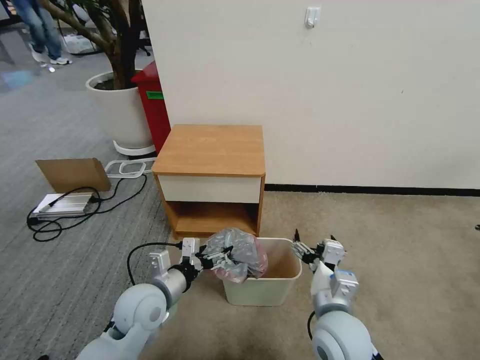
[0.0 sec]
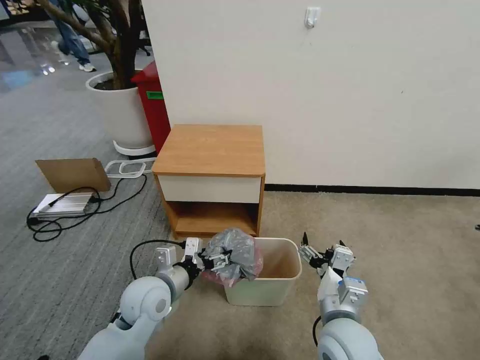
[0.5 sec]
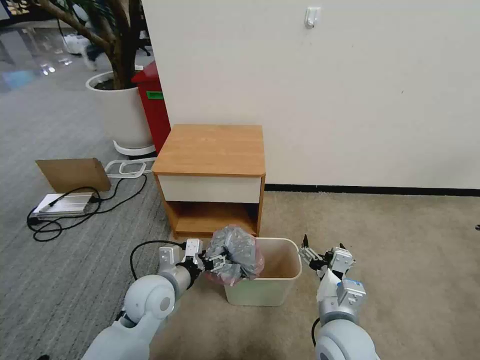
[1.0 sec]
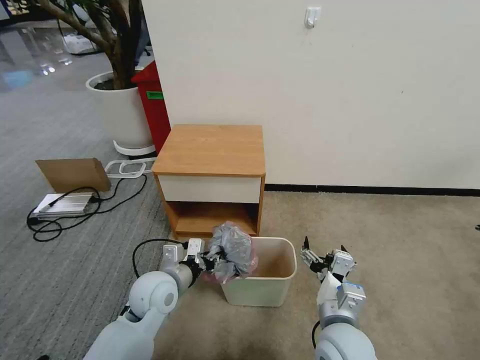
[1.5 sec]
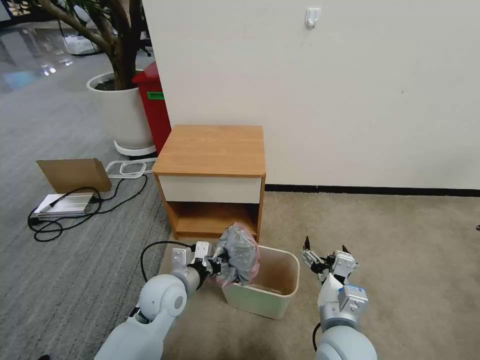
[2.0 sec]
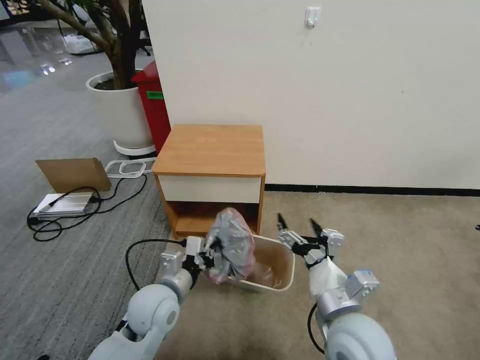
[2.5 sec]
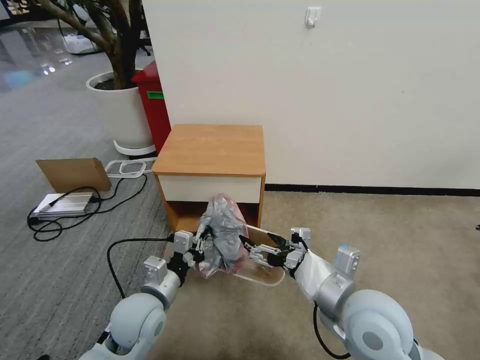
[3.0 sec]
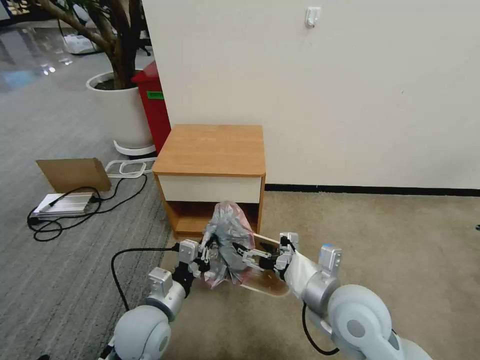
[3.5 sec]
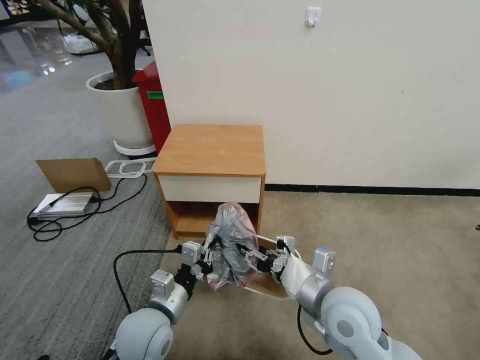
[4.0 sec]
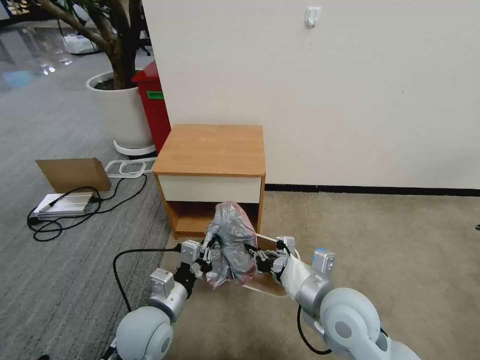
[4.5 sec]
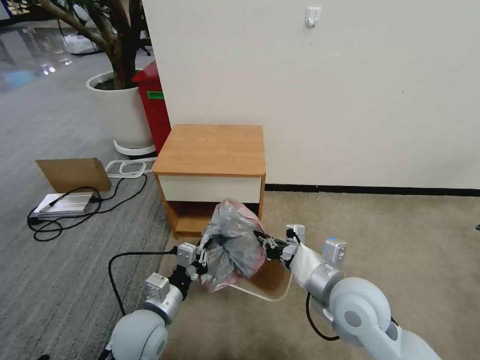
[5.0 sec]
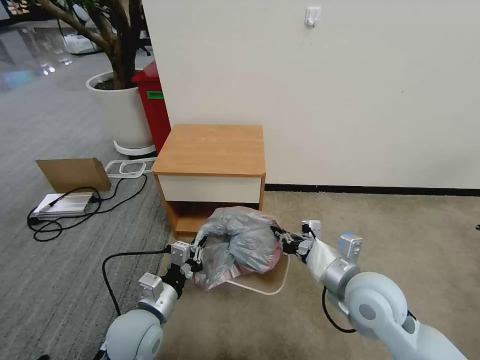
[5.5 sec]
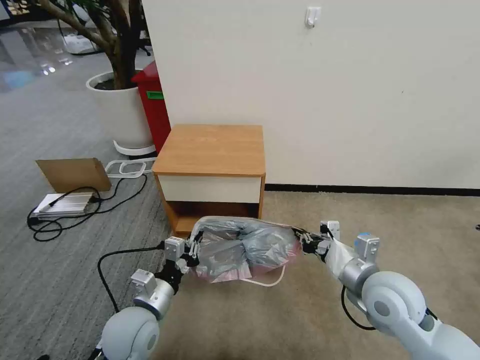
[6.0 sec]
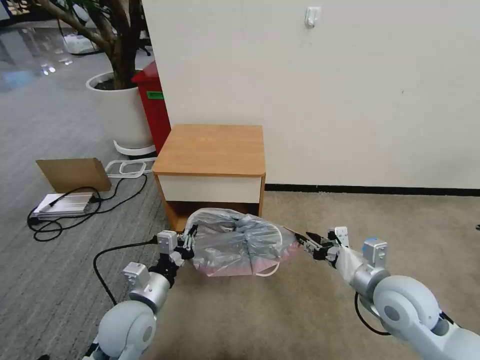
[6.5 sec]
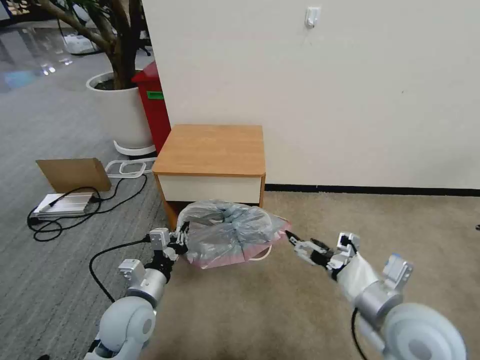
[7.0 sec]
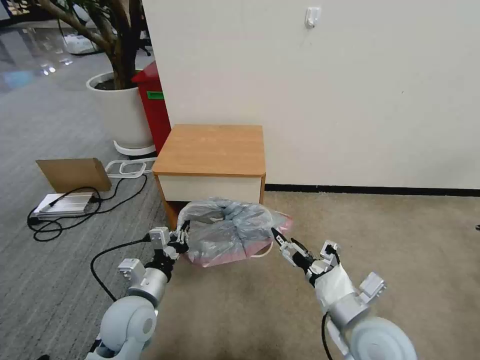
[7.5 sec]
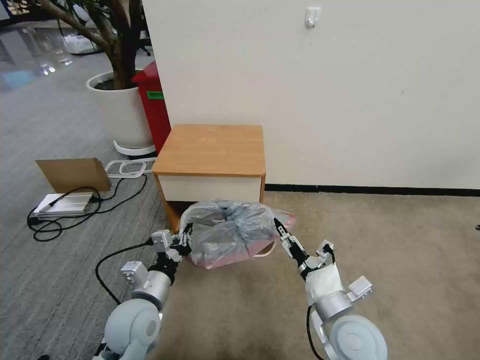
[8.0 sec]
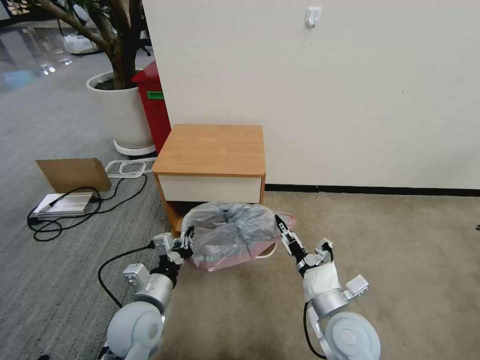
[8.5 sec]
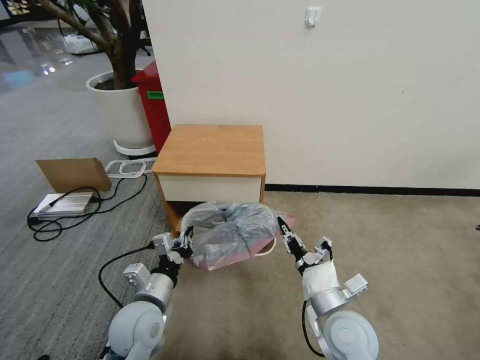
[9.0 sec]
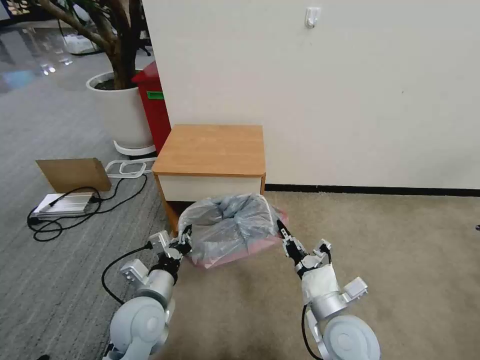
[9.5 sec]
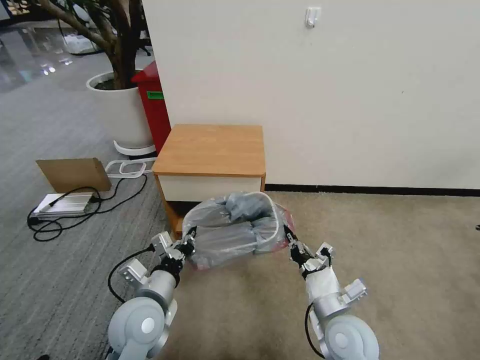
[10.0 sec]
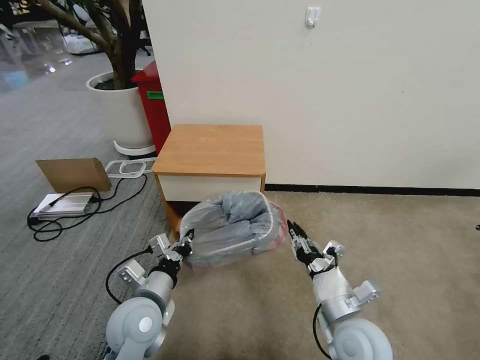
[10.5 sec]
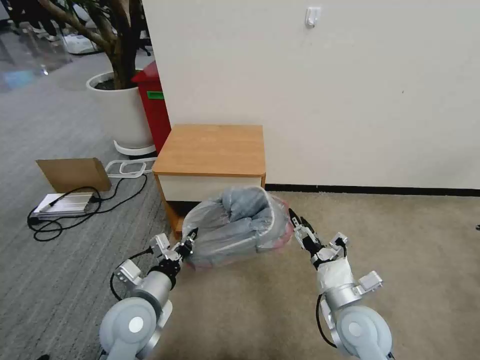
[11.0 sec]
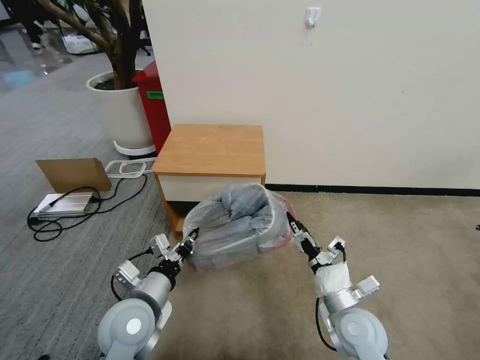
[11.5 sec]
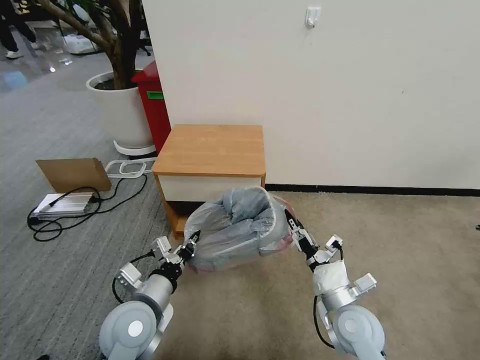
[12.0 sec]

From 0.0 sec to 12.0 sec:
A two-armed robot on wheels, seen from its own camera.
Task of the whole recording: Pick up the garbage bag from the table and place it over the trash can.
From 0.0 sec to 2.0 sec: The left gripper moves about 5 cm, and closes up.
From 2.0 sec to 4.0 sec: The right gripper is displaced upward by about 5 cm, and closes its fingers; the left gripper heads backward, covering about 10 cm.
From 4.0 sec to 6.0 sec: The right gripper shifts about 10 cm to the right, and closes its fingers.
From 6.0 sec to 8.0 sec: The right gripper is displaced to the left, downward and backward by some 10 cm, and opens its fingers.
From 8.0 sec to 10.0 sec: The right gripper closes its fingers.
From 10.0 sec to 12.0 sec: The right gripper opens its fingers.

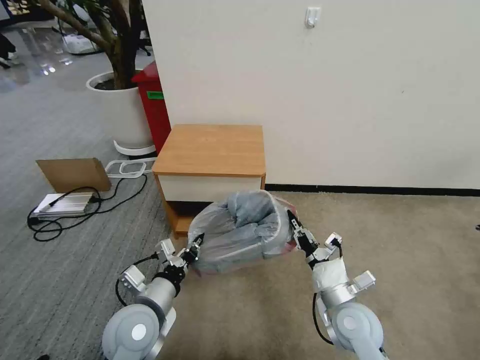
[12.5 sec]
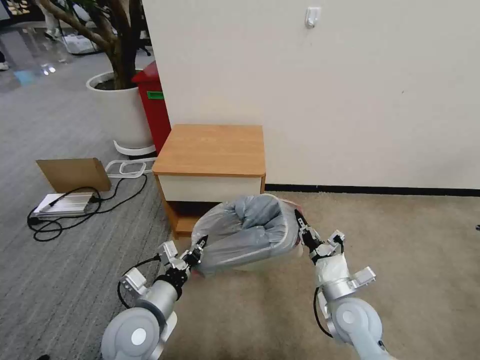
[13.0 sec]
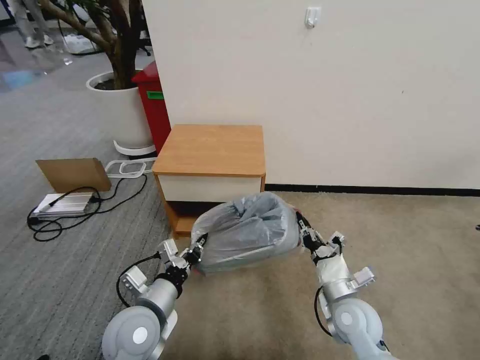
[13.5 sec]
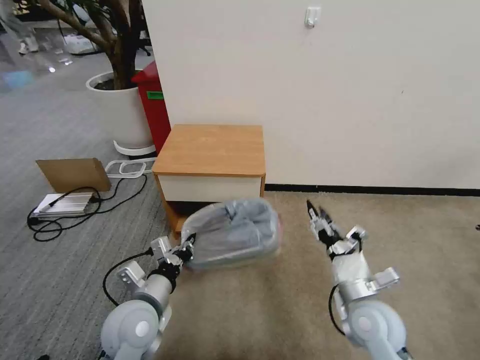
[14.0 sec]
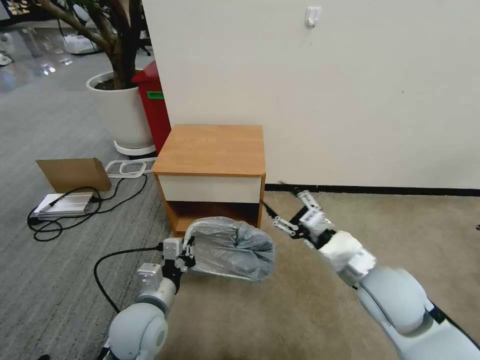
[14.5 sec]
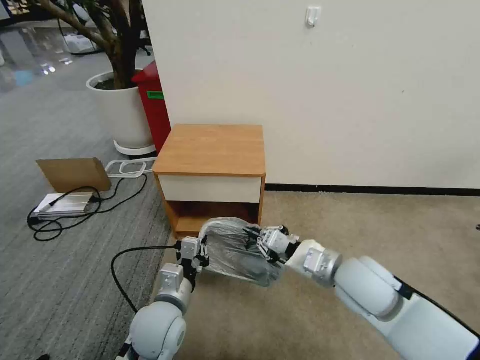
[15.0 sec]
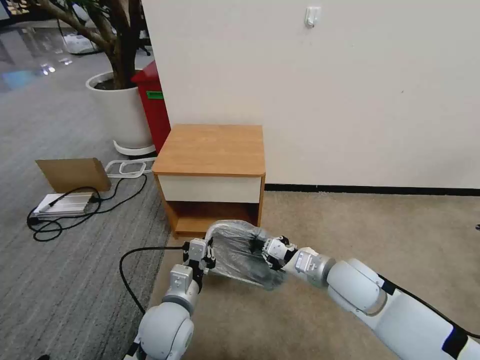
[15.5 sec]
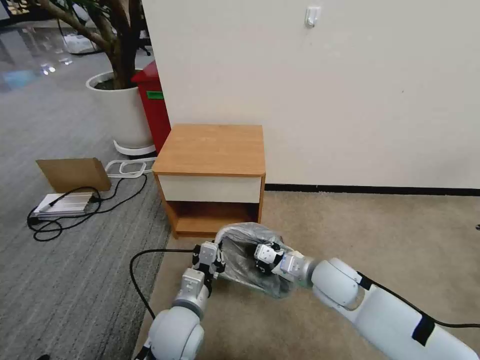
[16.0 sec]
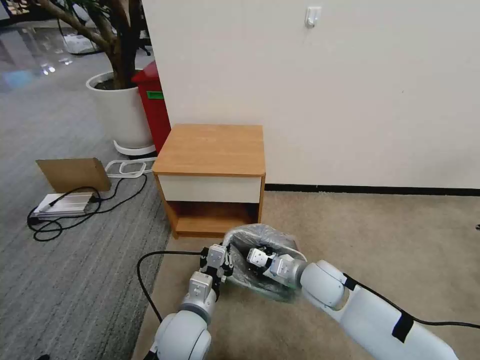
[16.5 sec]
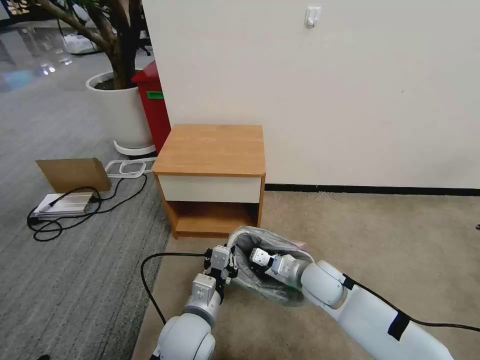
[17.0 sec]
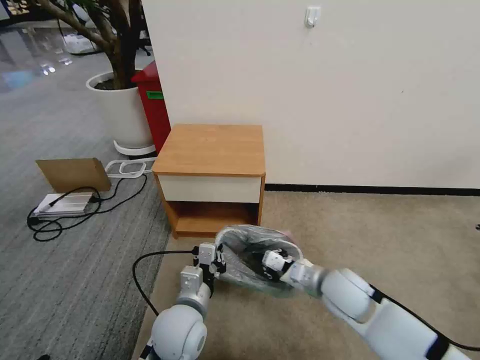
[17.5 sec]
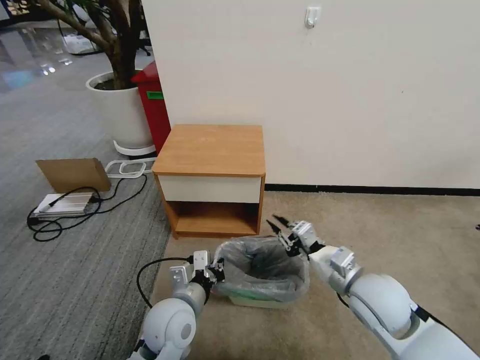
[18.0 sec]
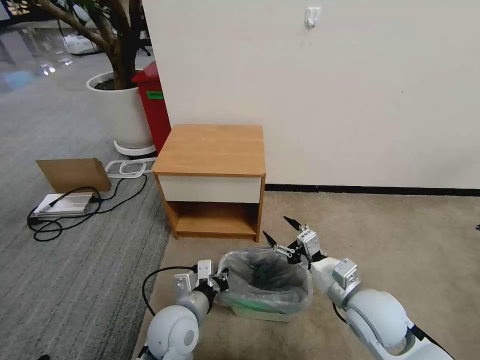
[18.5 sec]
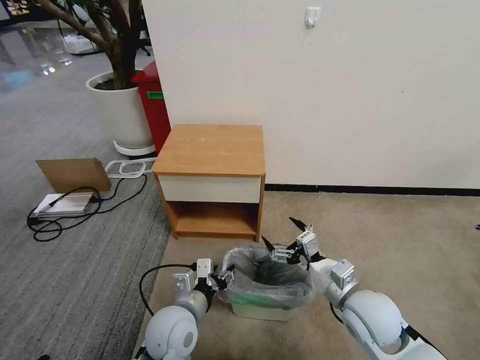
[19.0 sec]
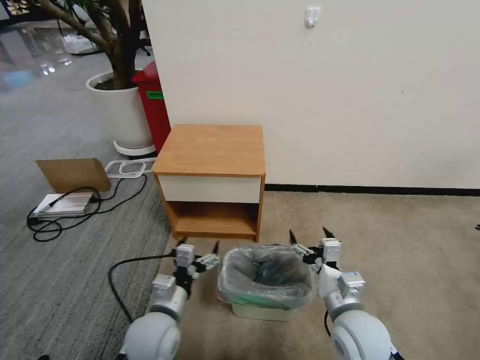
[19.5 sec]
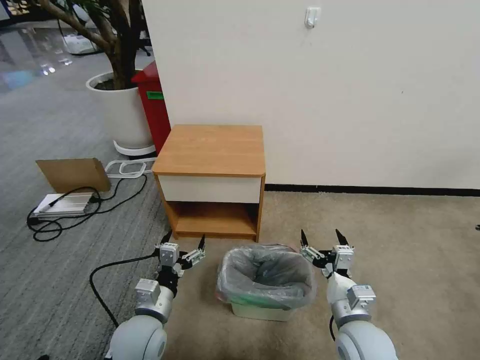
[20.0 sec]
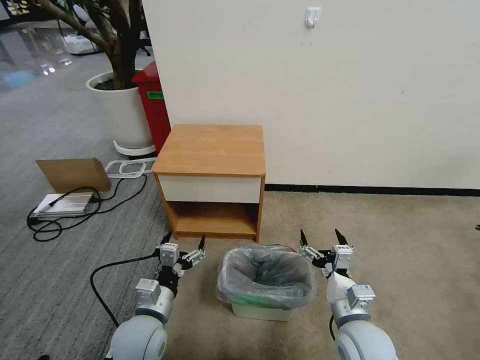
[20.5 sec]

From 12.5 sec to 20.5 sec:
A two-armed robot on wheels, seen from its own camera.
Task of the whole recording: Pick up the garbage bag from the table and place it over the trash can.
From 12.5 sec to 14.5 sec: The right gripper moves upward, some 15 cm, and opens up.
From 14.5 sec to 16.5 sec: The left gripper moves to the right, some 10 cm. The right gripper travels downward, to the left and forward by approximately 15 cm, and closes.
From 16.5 sec to 18.5 sec: The right gripper moves backward, to the right and upward, approximately 10 cm, and opens.
From 18.5 sec to 20.5 sec: The right gripper heads downward, covering some 5 cm; the left gripper moves to the left, some 5 cm, and opens its fingers.

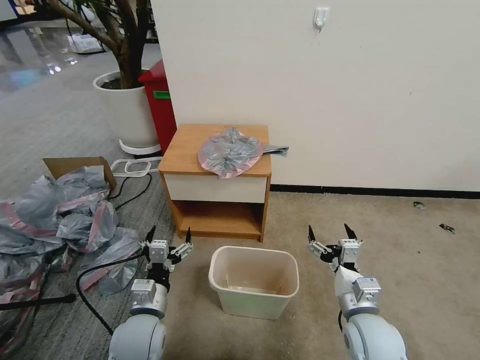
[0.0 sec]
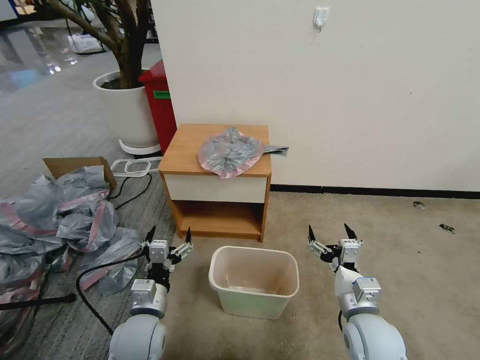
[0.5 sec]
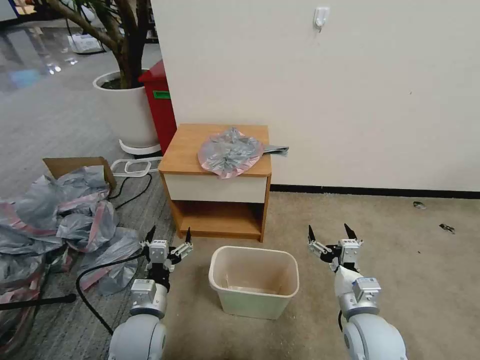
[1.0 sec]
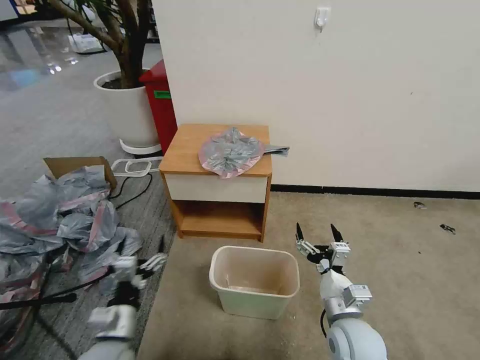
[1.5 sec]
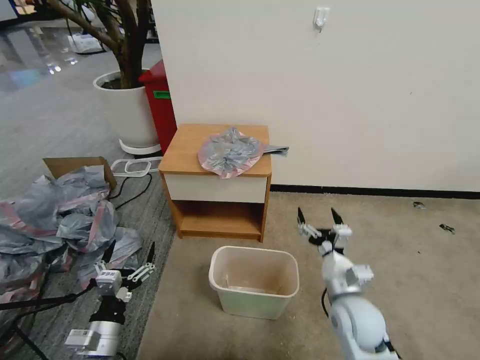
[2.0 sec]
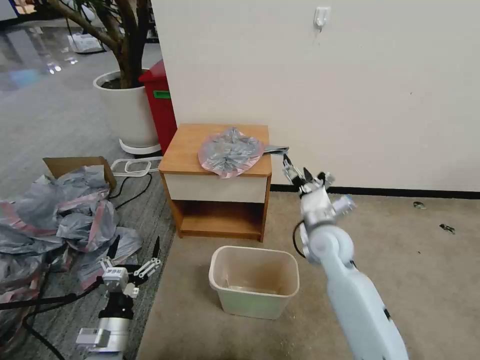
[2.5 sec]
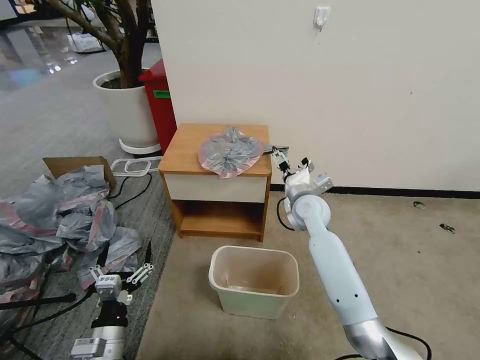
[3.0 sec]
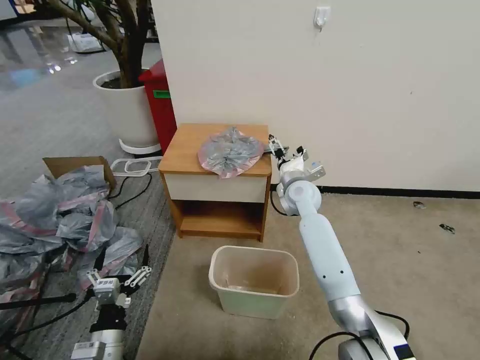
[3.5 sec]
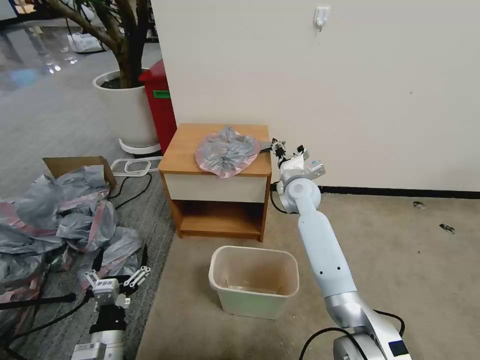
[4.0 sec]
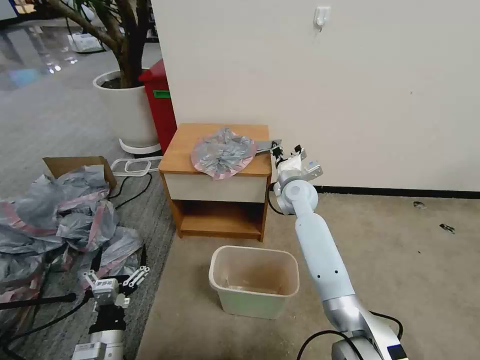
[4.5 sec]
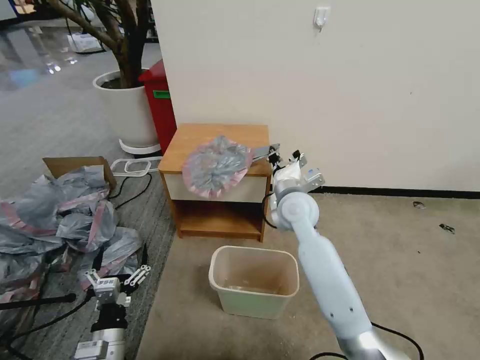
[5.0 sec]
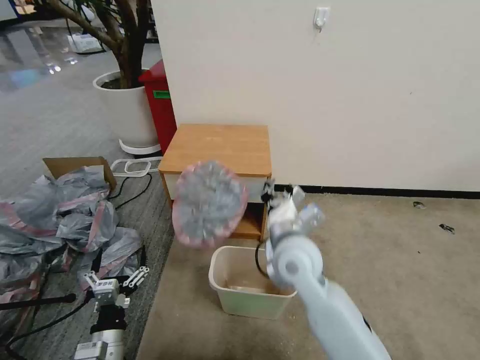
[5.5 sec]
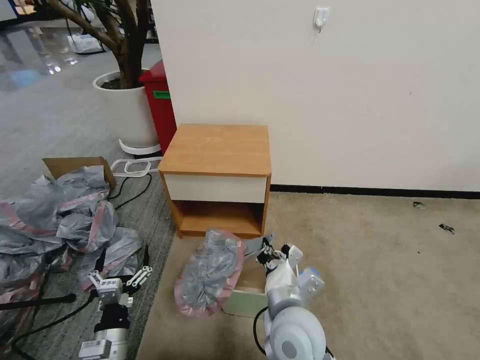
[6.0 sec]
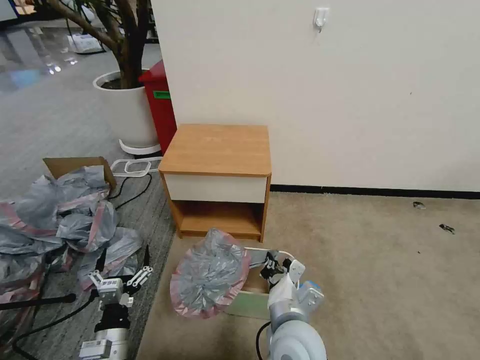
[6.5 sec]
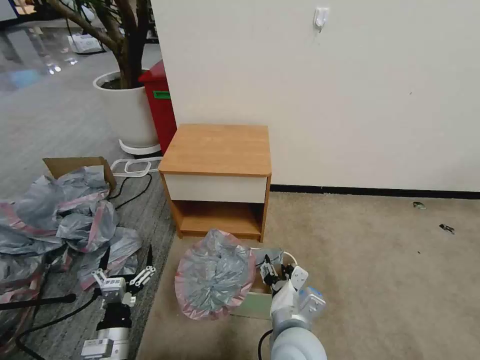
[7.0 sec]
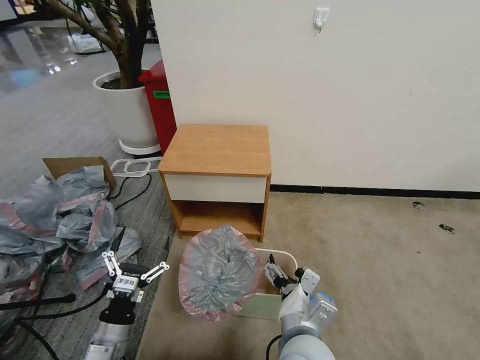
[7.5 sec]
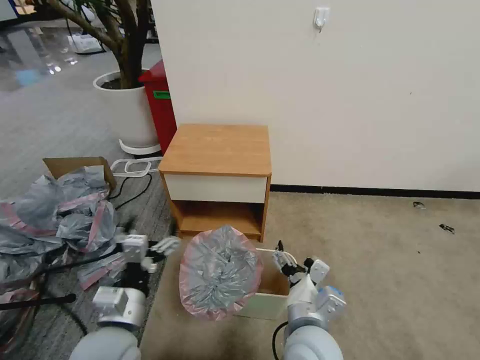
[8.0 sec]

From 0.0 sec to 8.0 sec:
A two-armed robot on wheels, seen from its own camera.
Task of the whole recording: Pick up the garbage bag from the table and place it over the trash can.
From 2.0 sec to 4.0 sec: The right gripper is displaced forward by about 30 cm, and closes its fingers.
From 4.0 sec to 6.0 sec: The right gripper is displaced backward by about 30 cm, and closes its fingers.
From 6.0 sec to 8.0 sec: The left gripper heads upward, covering about 10 cm, while the right gripper opens its fingers.
